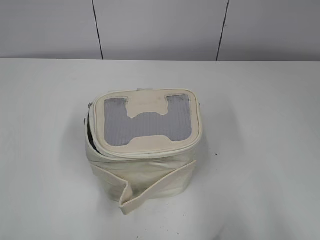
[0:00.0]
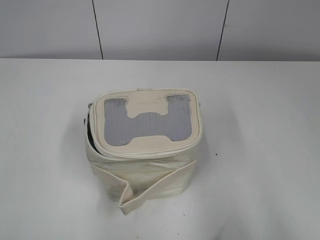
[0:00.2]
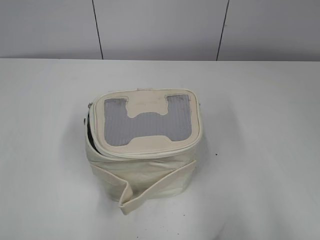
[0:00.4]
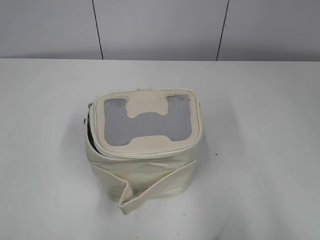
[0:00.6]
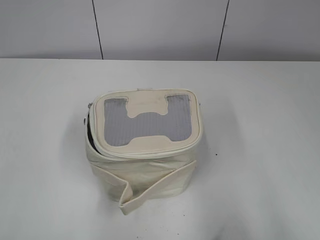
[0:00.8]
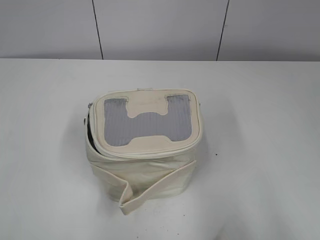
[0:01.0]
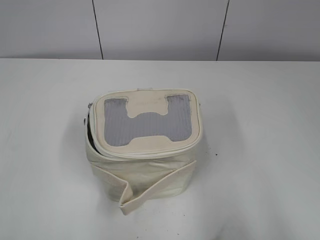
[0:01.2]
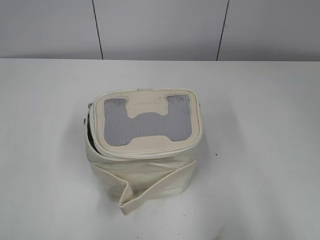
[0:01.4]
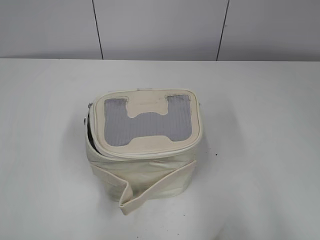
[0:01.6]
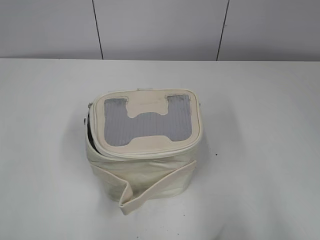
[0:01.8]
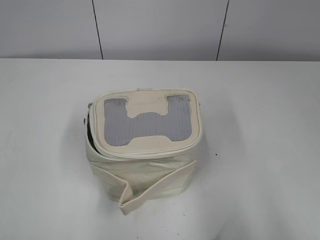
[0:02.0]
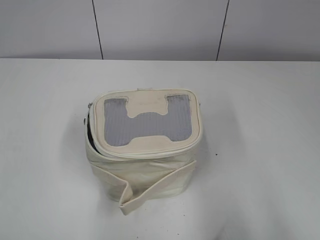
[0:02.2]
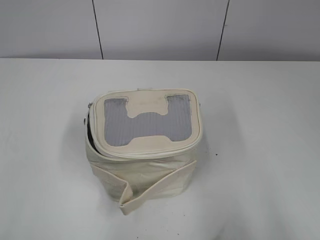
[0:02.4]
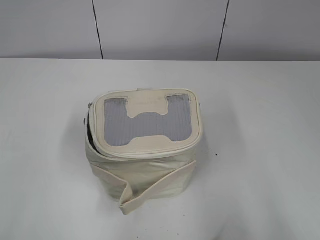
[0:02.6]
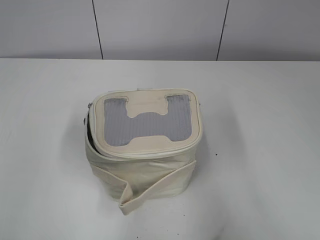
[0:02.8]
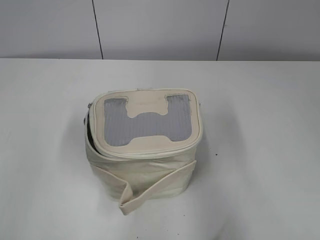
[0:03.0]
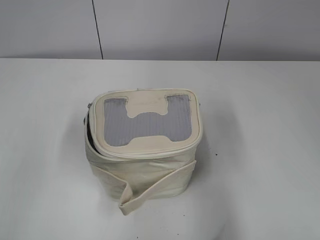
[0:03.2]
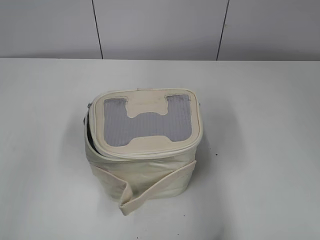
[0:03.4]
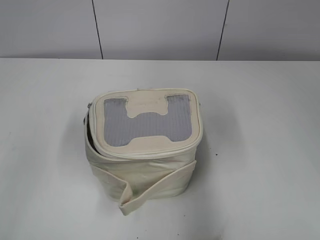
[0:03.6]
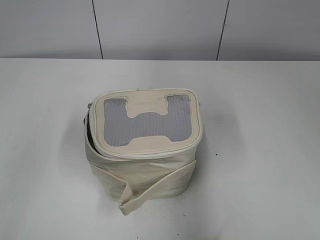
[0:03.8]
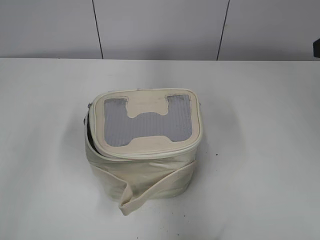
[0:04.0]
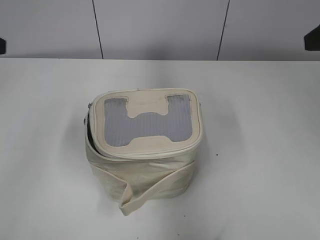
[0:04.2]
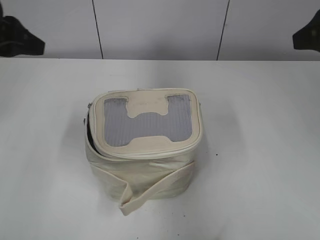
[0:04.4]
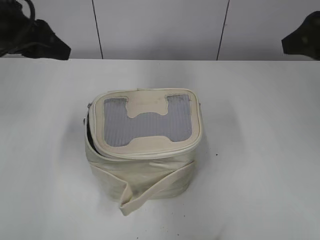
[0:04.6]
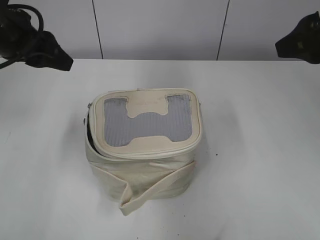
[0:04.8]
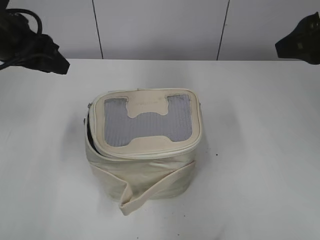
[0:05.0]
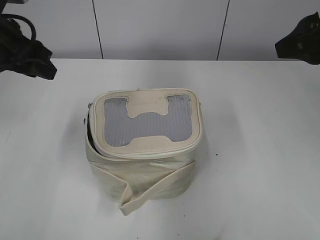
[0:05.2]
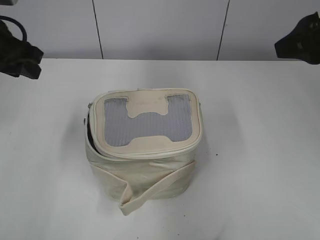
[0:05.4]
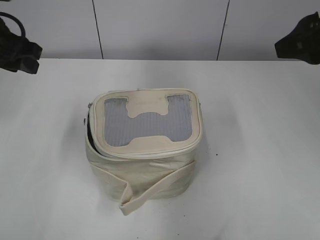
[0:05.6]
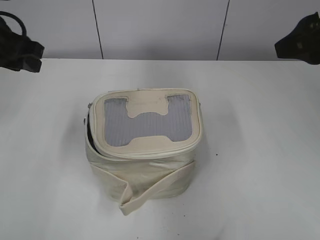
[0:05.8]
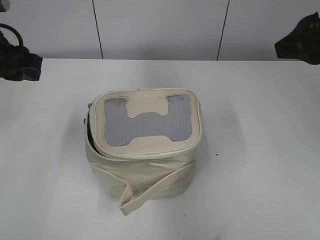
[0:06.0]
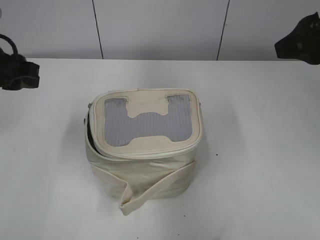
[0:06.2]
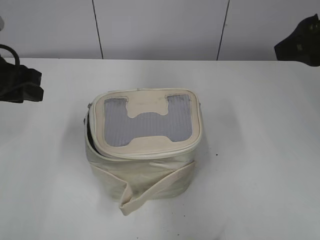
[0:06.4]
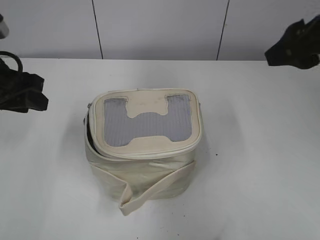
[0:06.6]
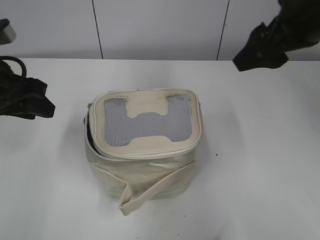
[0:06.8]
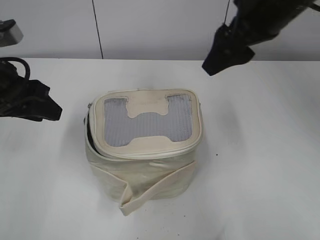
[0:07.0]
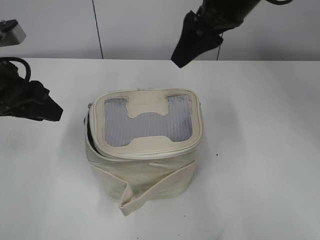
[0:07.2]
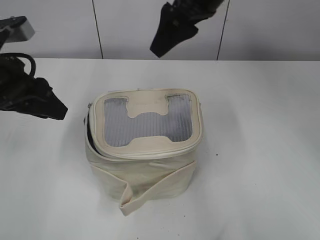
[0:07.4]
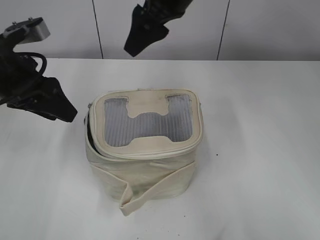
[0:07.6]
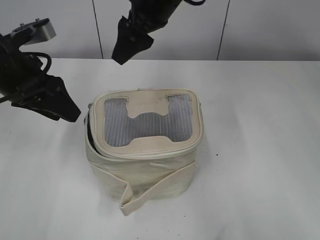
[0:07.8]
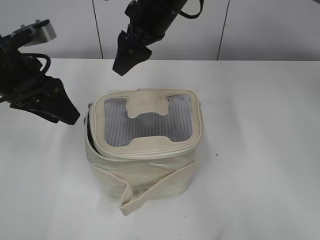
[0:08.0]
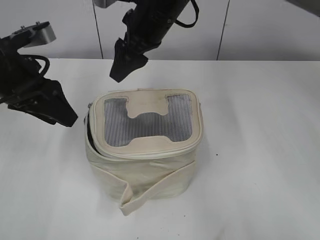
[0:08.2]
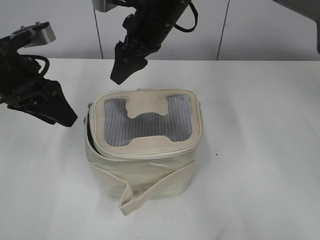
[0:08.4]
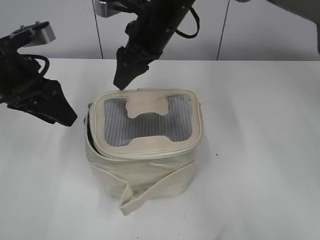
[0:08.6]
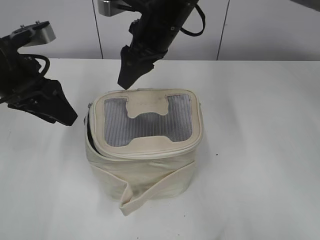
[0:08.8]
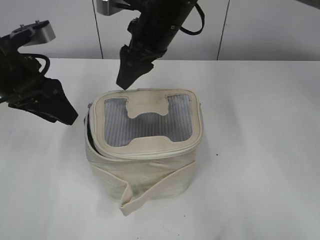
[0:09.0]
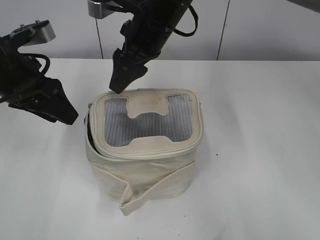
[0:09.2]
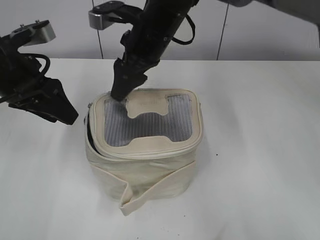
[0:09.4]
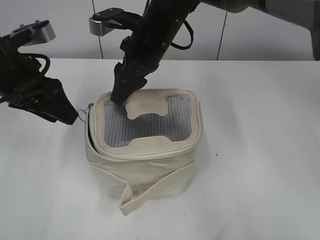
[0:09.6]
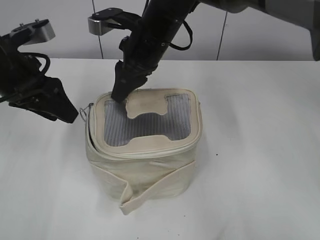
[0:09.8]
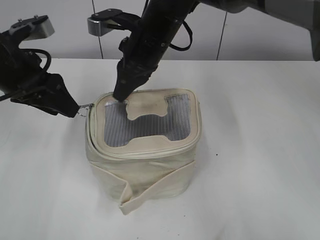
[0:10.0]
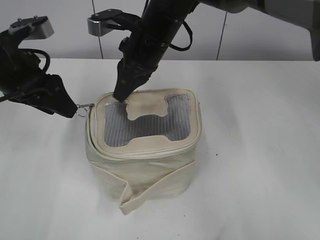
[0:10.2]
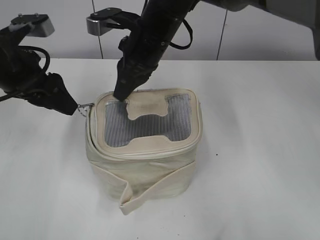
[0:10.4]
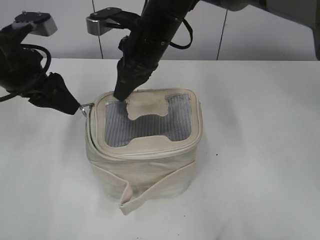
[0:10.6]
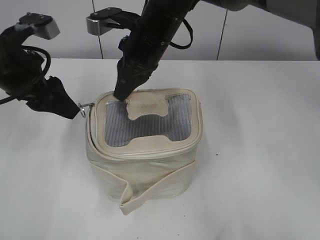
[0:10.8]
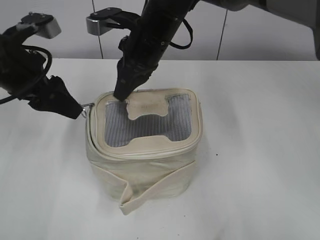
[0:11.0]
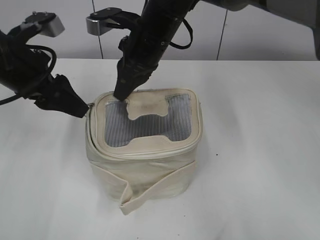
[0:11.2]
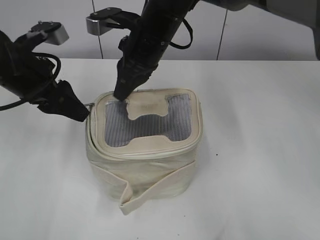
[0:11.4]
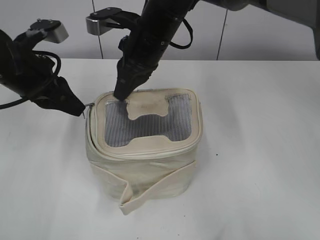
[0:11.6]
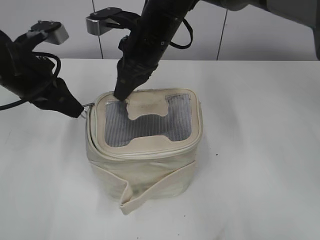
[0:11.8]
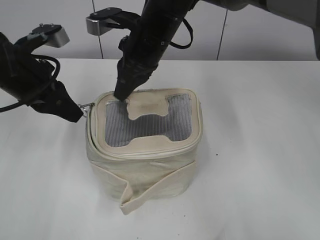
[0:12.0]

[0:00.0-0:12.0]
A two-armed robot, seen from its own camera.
0:01.6 to 0:03.0: The left gripper moves forward, approximately 10 cm.
0:03.0 to 0:04.4: The grippers both shift forward by approximately 20 cm.
0:06.0 to 0:07.6: The right gripper travels to the left and forward by approximately 25 cm.
0:07.6 to 0:09.0: The right gripper moves downward, about 5 cm.
0:09.0 to 0:10.4: The right gripper closes.
0:10.4 to 0:12.0: The left gripper closes its fingers.

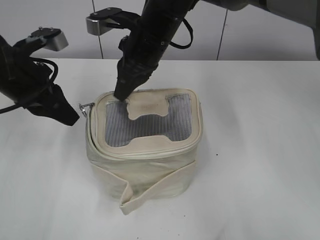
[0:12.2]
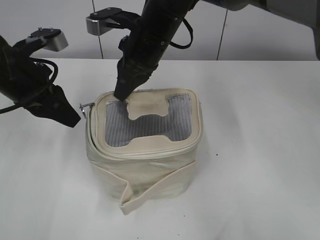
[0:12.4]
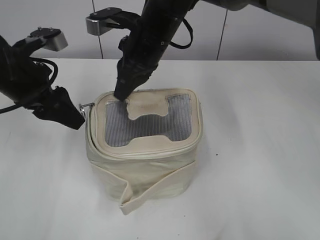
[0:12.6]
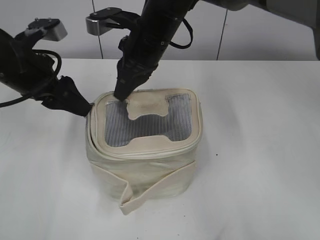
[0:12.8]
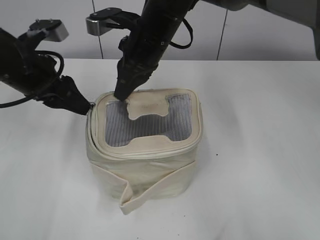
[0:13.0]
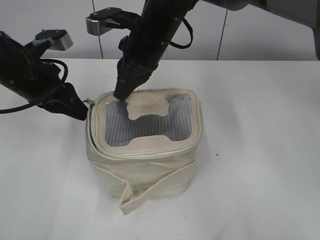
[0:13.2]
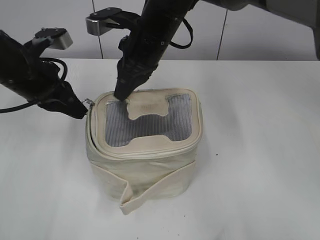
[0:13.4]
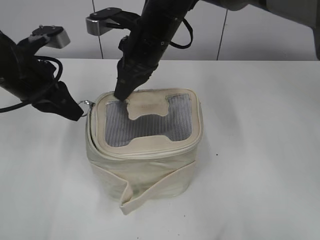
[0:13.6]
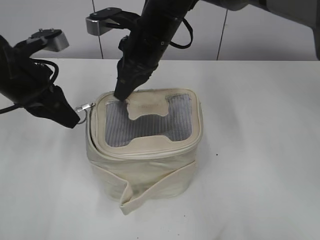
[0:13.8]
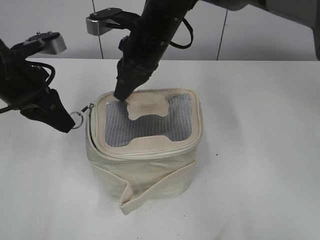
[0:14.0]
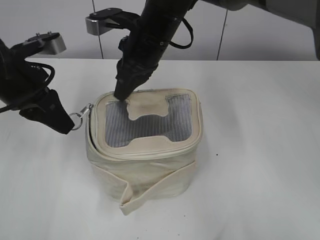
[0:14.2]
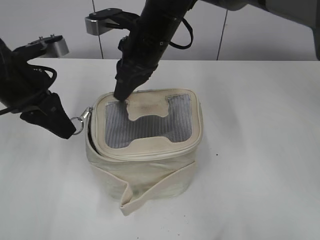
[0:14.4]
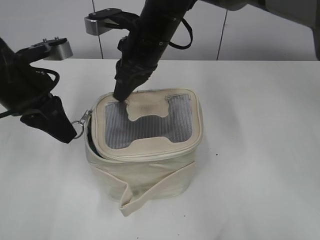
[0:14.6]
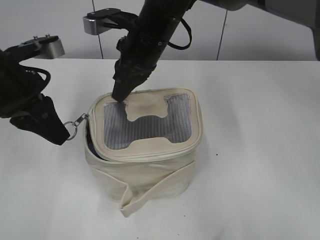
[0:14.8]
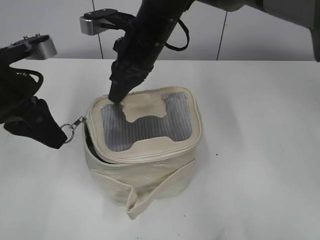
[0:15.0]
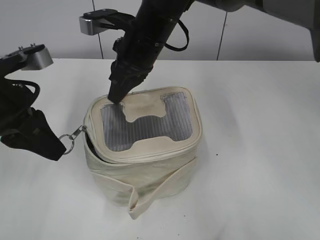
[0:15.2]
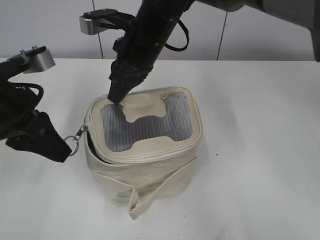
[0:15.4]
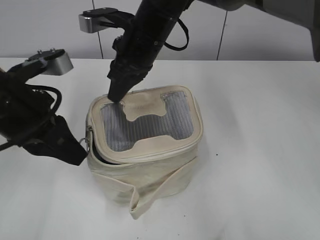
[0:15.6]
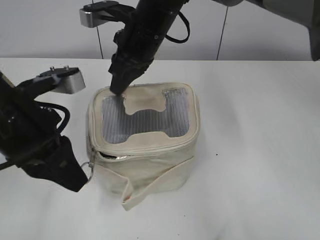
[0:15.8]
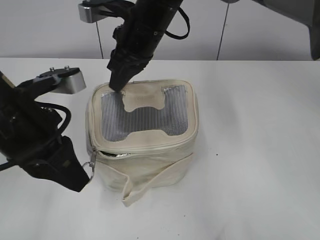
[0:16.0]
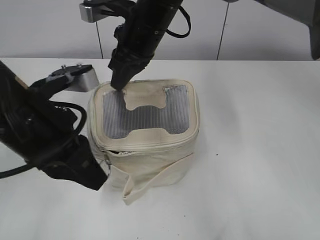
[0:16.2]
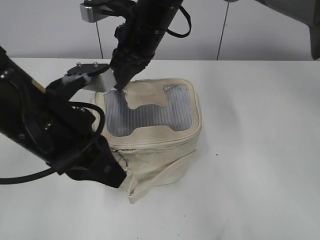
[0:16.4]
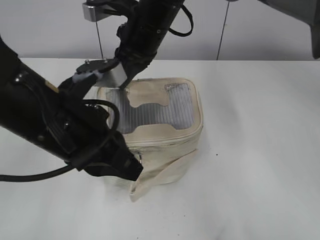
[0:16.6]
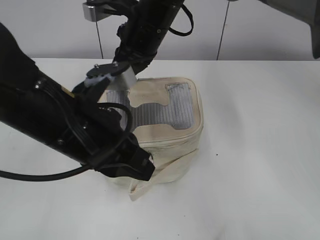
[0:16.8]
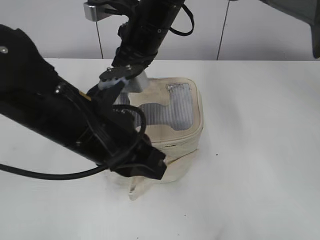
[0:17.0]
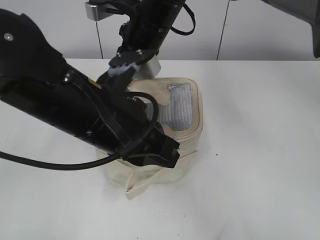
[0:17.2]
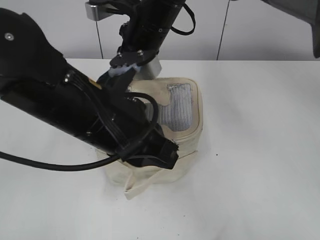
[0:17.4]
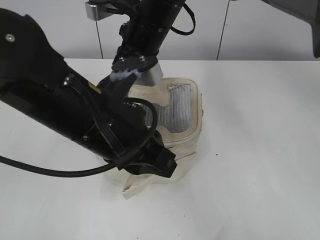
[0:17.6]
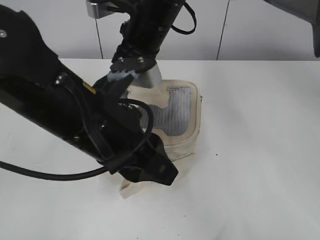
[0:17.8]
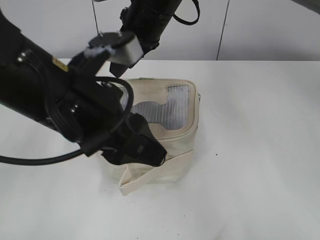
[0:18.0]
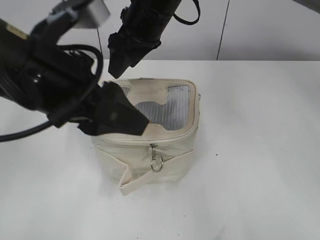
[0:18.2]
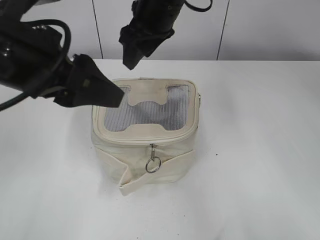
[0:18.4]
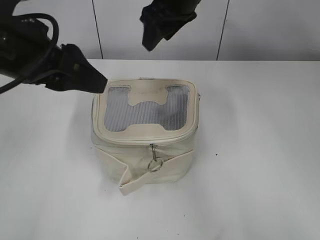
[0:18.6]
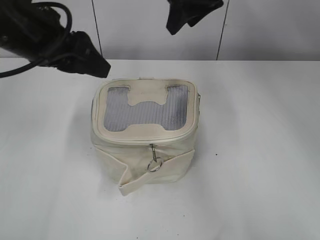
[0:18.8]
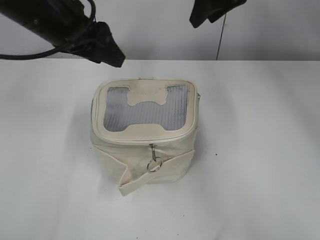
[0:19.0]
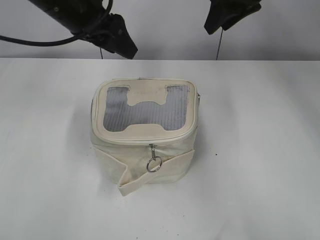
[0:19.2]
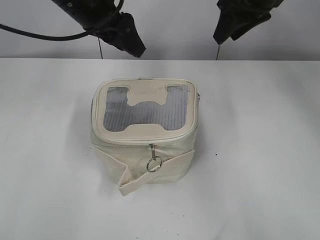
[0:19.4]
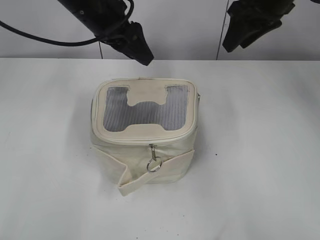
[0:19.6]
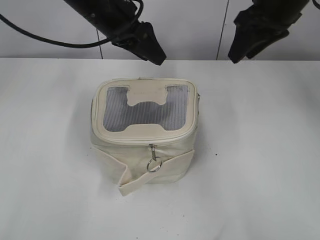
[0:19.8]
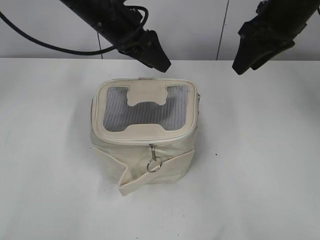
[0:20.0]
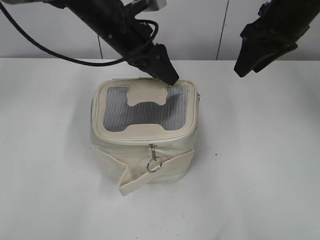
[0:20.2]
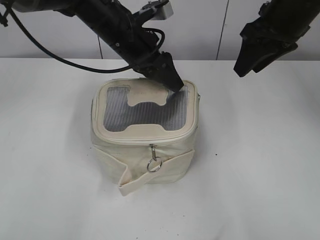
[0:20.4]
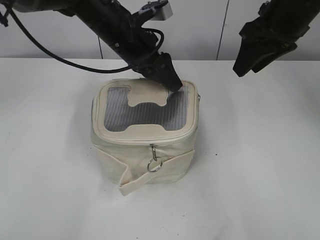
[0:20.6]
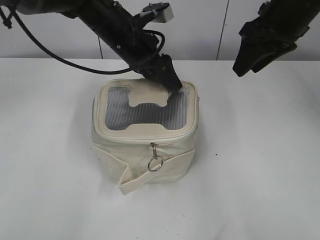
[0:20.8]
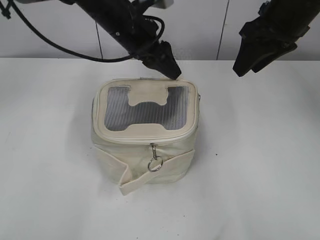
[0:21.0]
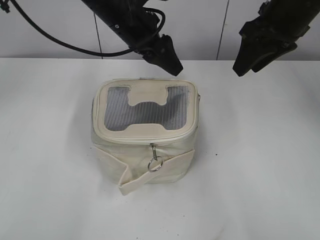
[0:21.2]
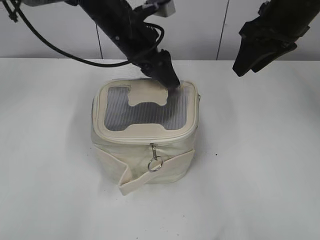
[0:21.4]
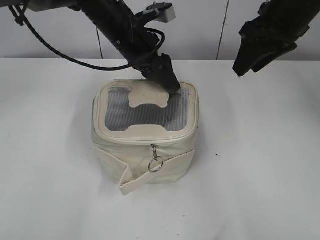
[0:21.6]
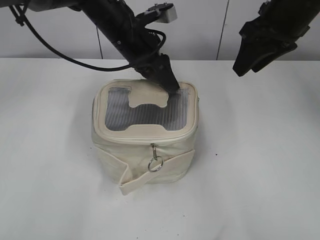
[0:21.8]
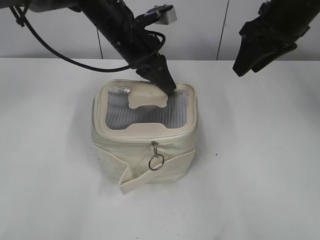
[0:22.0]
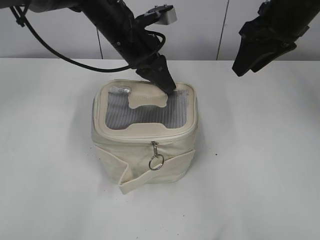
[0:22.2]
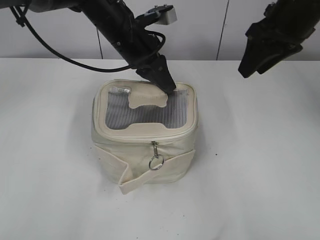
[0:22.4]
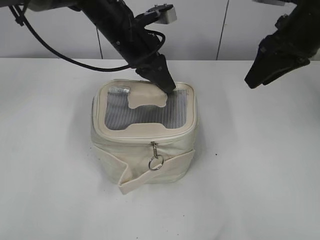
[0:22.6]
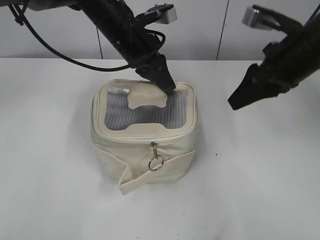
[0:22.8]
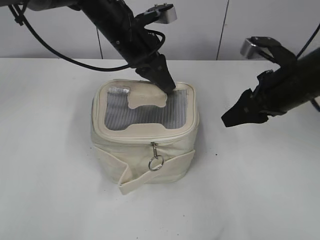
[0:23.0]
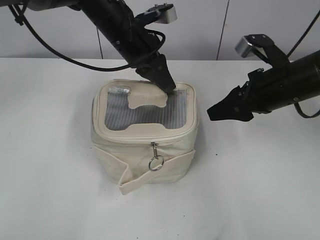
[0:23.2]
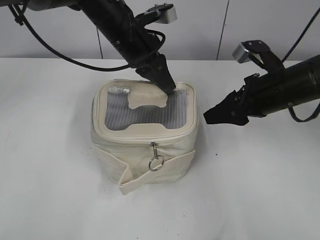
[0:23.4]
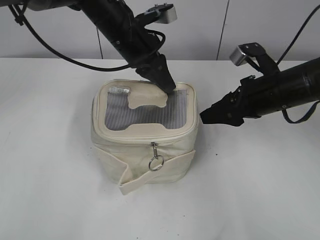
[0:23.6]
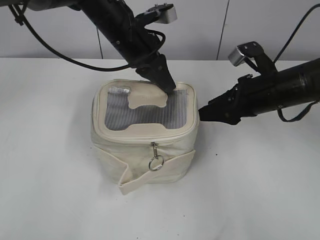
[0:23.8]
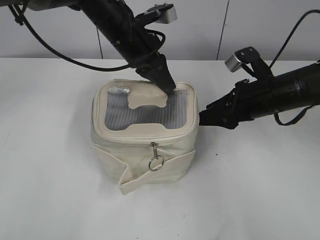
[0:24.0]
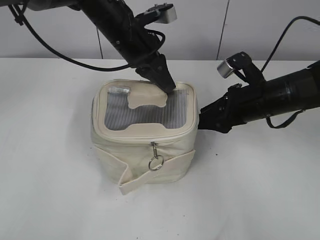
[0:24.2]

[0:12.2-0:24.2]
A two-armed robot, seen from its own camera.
Step, 0:12.2 to 0:17.6: Zip up the bag with your left hand.
0:12.2 to 0:13.8: The left gripper opens, then closes again.
0:13.8 to 0:15.2: The left gripper goes roughly 5 cm backward.
0:15.2 to 0:16.6: The left gripper goes about 10 cm to the right.
0:16.6 to 0:18.2: The right gripper opens up; the left gripper heads upward, covering approximately 5 cm, and opens its fingers.
0:18.2 to 0:19.8: The right gripper moves to the right, about 20 cm; the left gripper travels forward by about 20 cm.
0:21.2 to 0:22.6: The left gripper closes its fingers.
0:22.6 to 0:24.2: The right gripper heads downward, covering some 15 cm.
